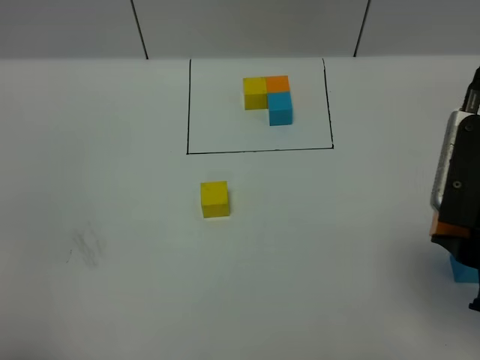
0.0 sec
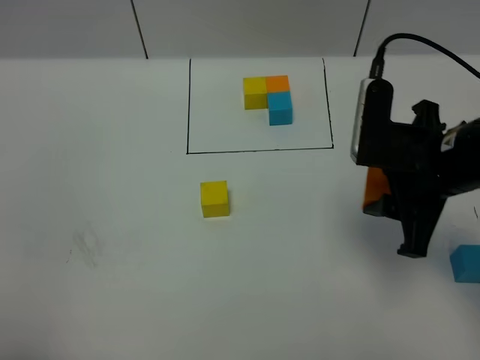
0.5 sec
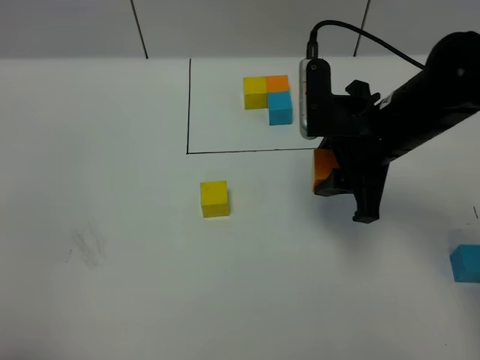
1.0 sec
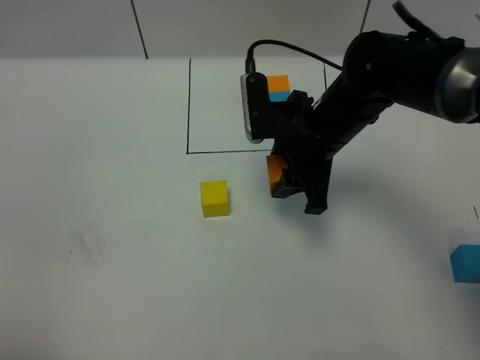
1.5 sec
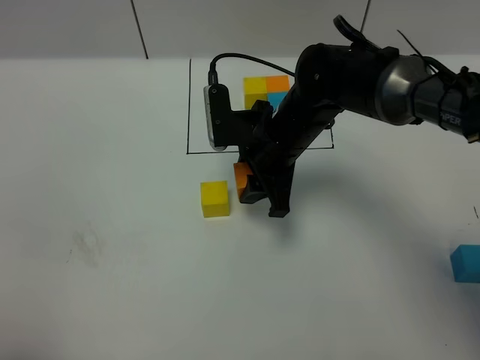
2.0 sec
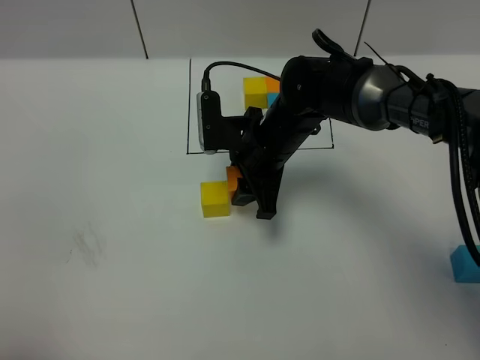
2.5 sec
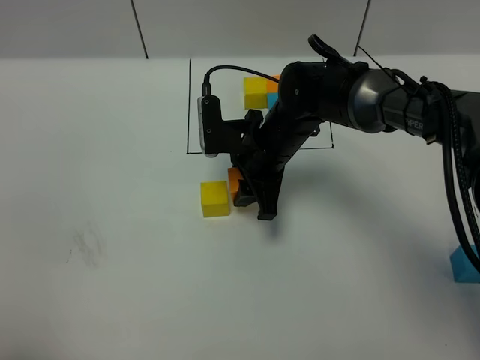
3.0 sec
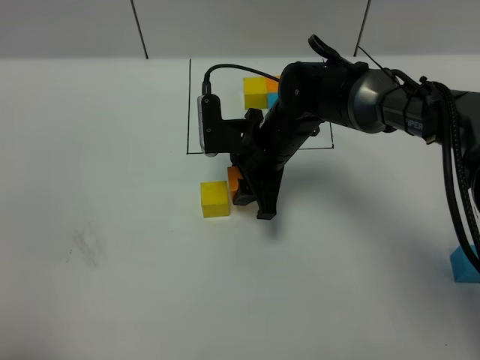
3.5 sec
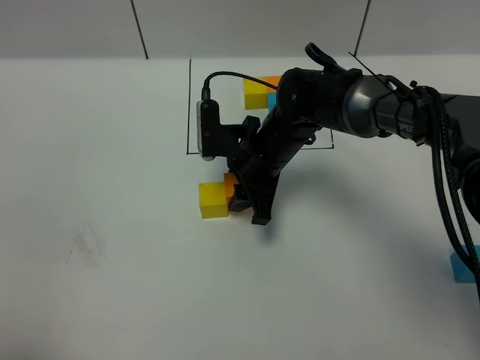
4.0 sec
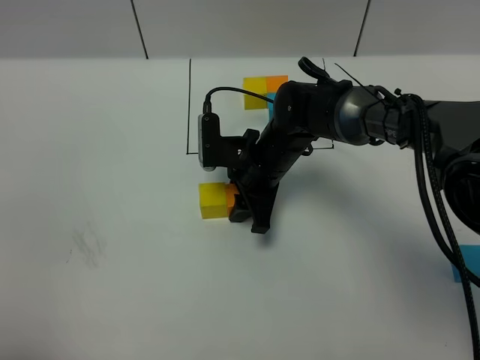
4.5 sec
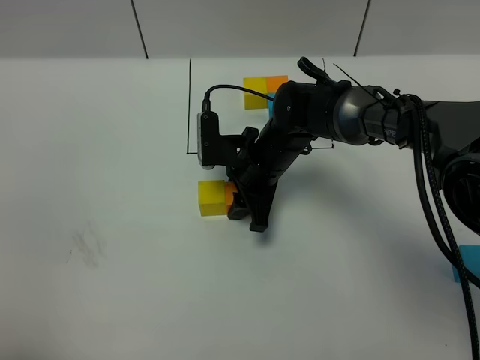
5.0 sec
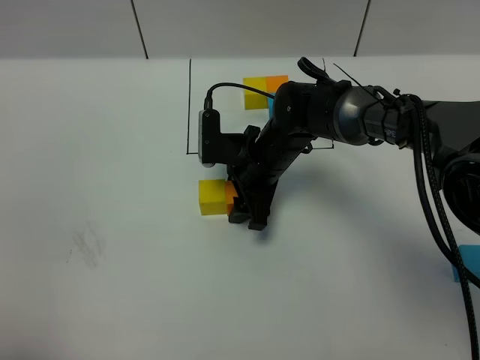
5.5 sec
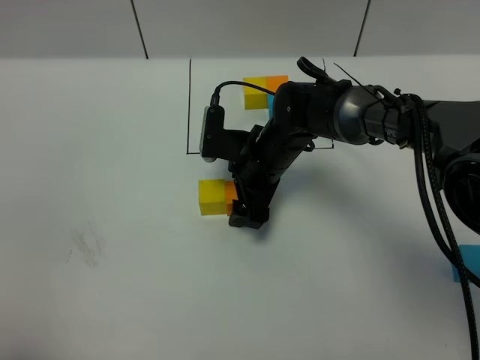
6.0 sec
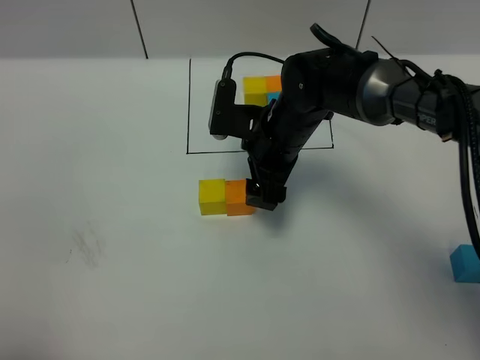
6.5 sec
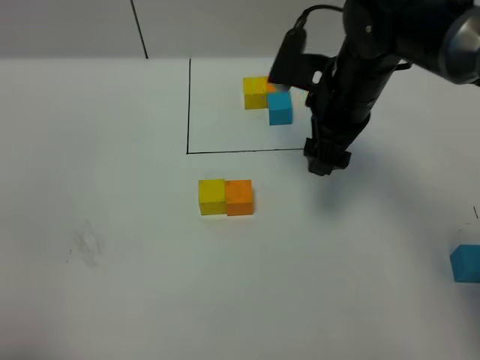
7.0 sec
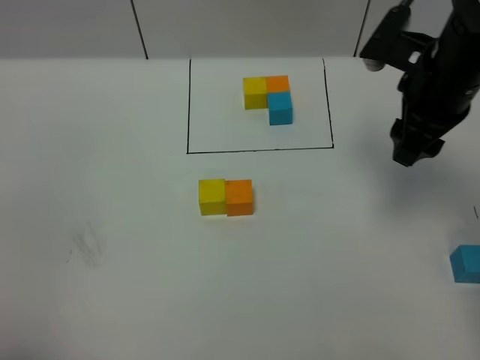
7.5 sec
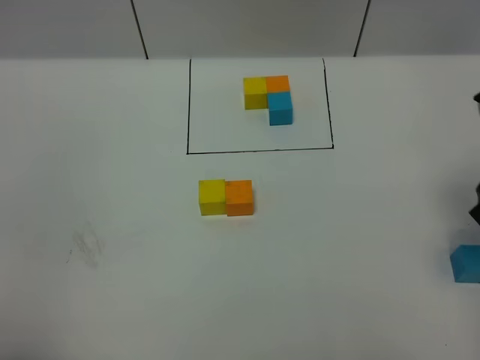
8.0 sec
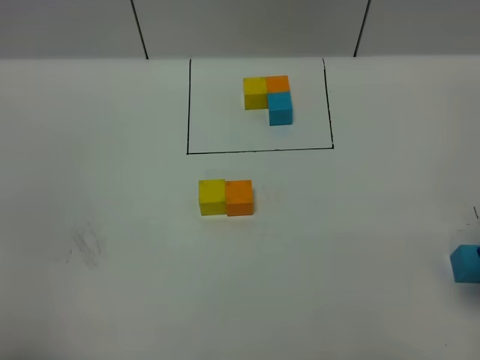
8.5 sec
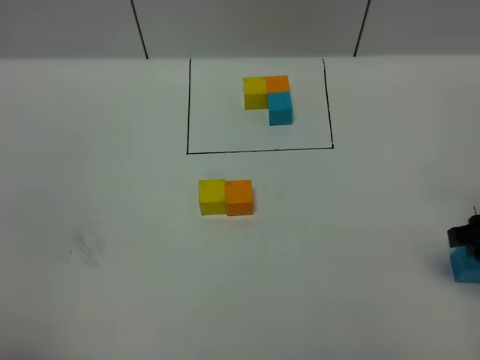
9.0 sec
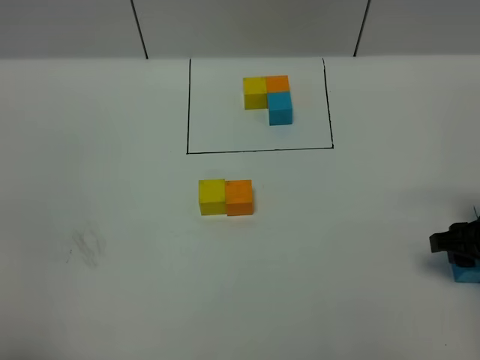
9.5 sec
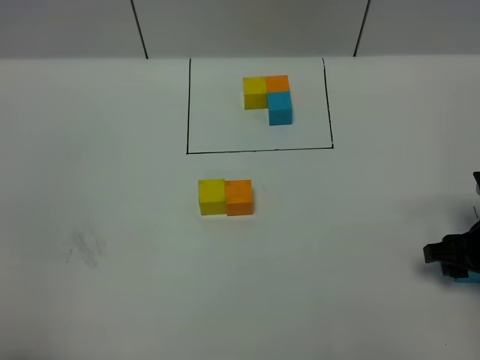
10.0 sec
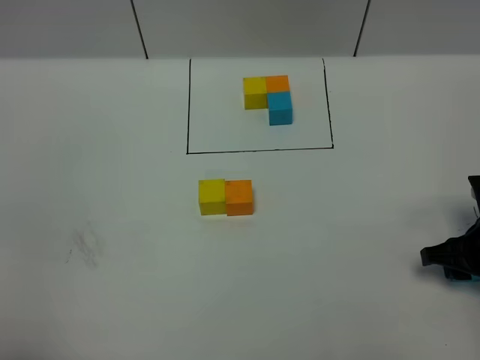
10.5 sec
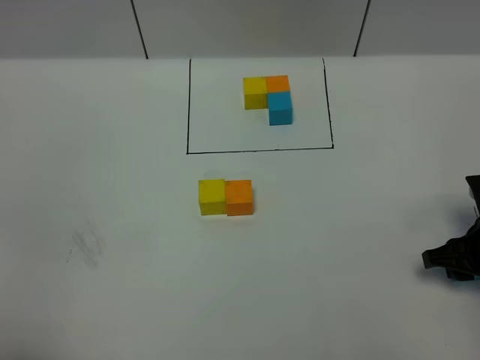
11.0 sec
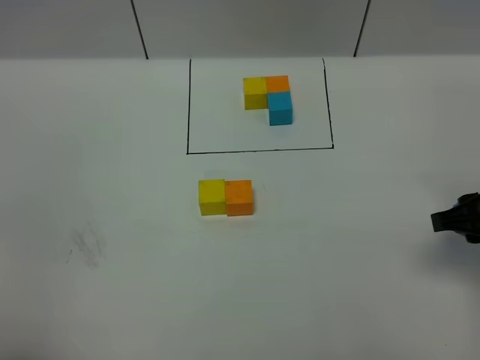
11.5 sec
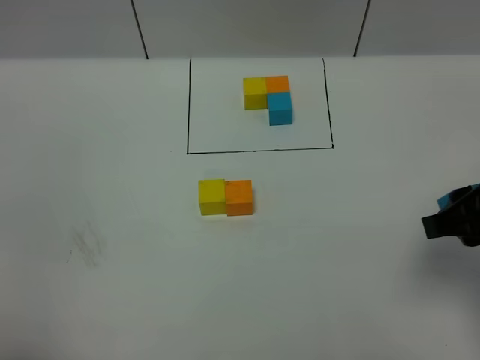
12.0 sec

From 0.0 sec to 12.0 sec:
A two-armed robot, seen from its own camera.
Task of the whole recording: According to the building block template in front, assemble the scattered blocks together.
Step, from 0.0 sec to 6.5 sec: Put the orange cube on the right of the yellow cube.
From 0.0 sec to 2.0 sec: The right gripper shifts approximately 30 cm forward, to the left and downward.
From 2.0 sec to 4.0 sec: The grippers make only small movements.
From 4.0 sec to 6.0 sec: The right gripper opens its fingers.
From 6.0 sec to 8.0 sec: The right gripper is displaced to the right, upward and backward by approximately 30 cm.
From 8.0 sec to 10.0 sec: The right gripper is displaced downward by roughly 15 cm.
From 10.0 sec to 12.0 sec: The right gripper shifts roughly 15 cm upward.

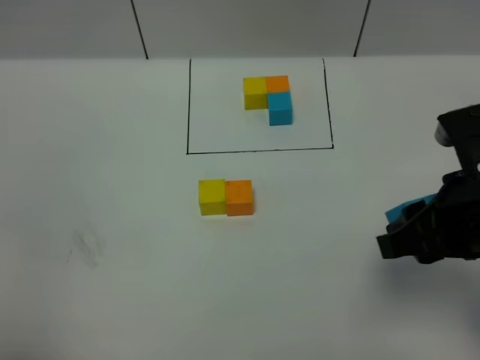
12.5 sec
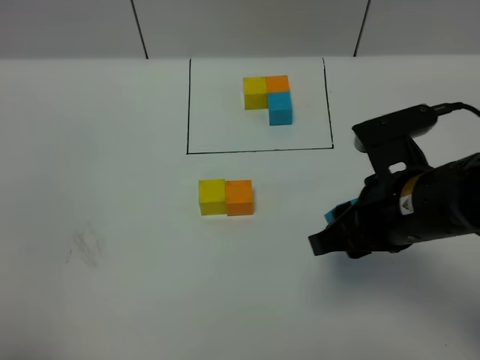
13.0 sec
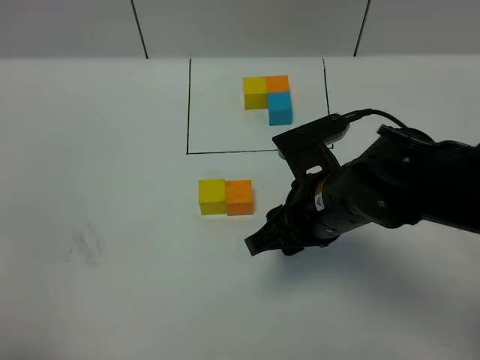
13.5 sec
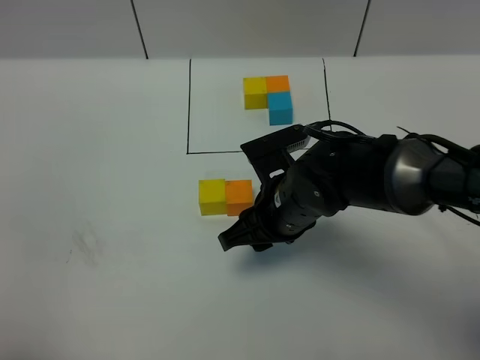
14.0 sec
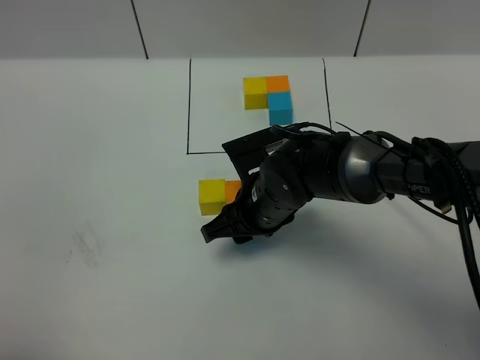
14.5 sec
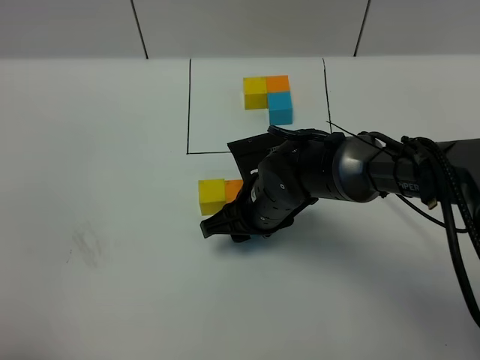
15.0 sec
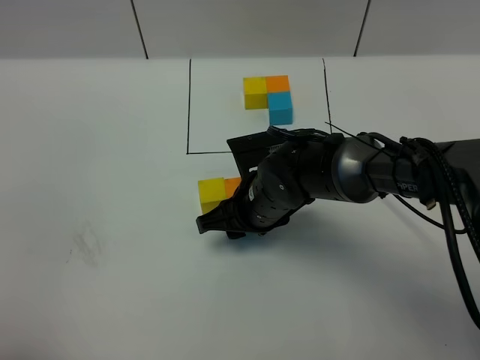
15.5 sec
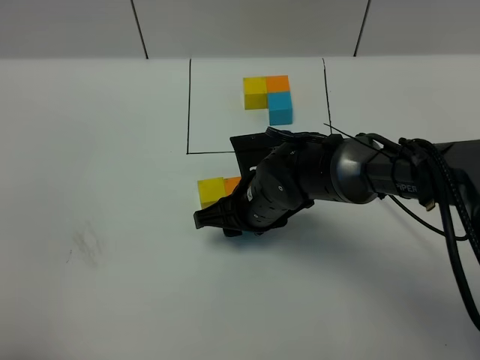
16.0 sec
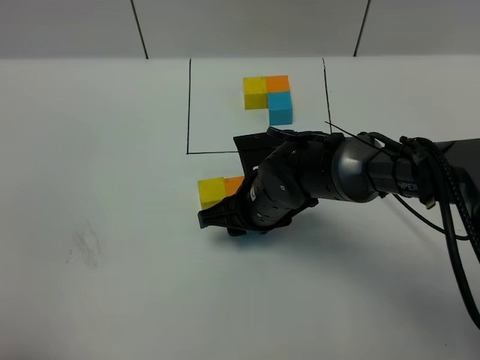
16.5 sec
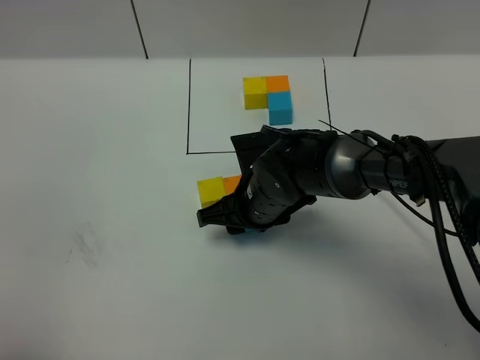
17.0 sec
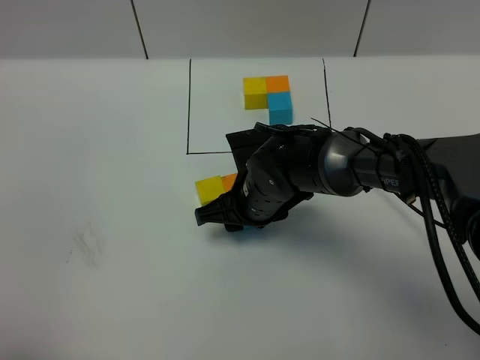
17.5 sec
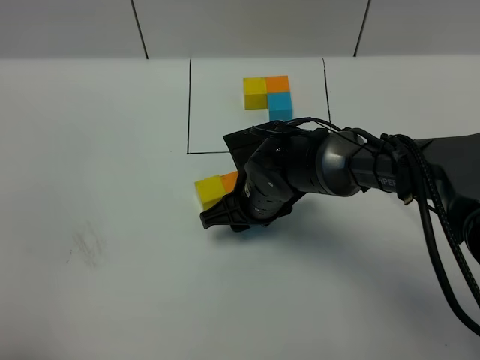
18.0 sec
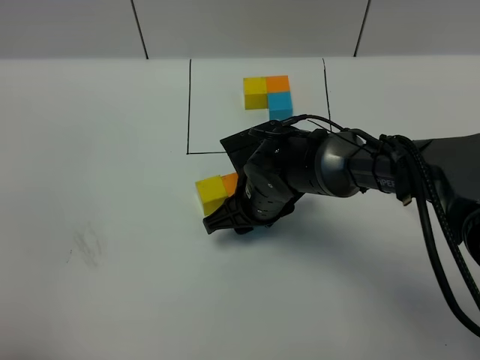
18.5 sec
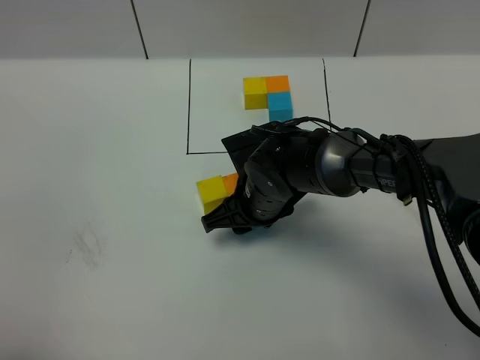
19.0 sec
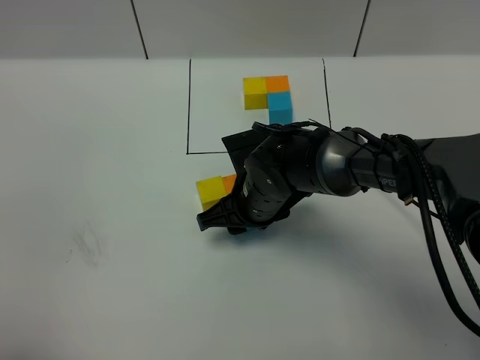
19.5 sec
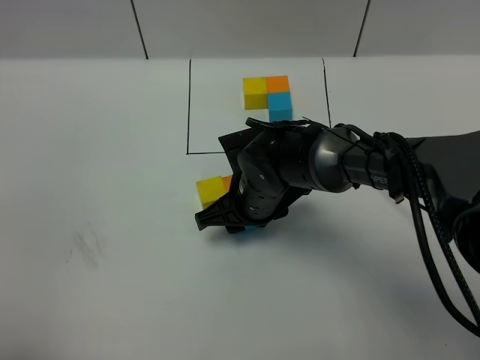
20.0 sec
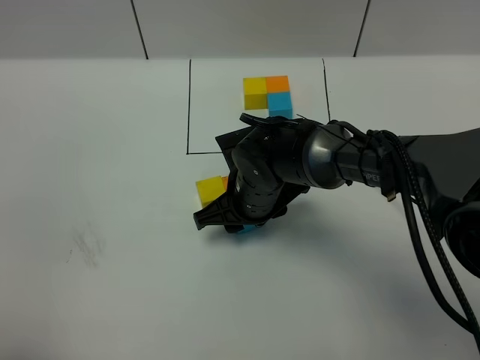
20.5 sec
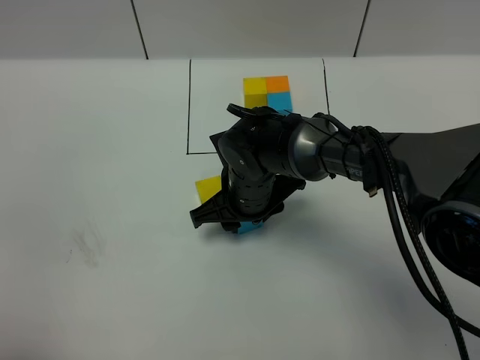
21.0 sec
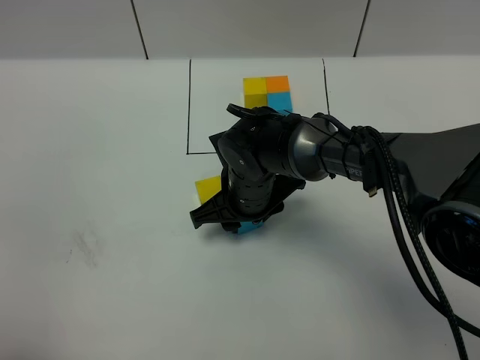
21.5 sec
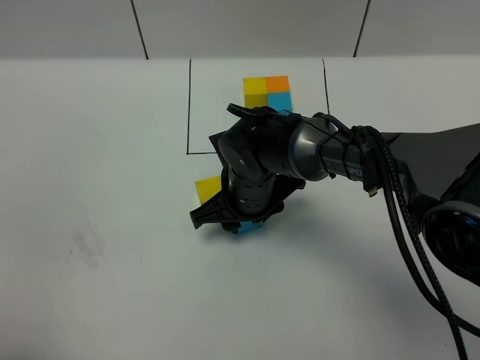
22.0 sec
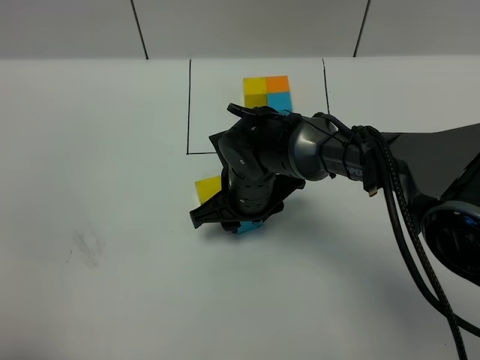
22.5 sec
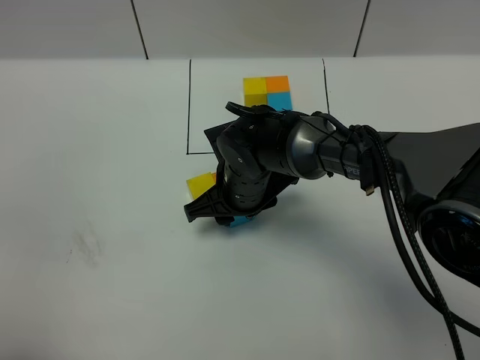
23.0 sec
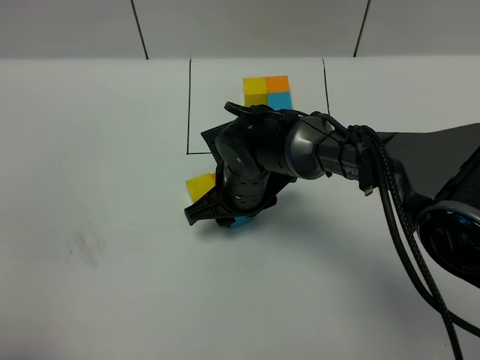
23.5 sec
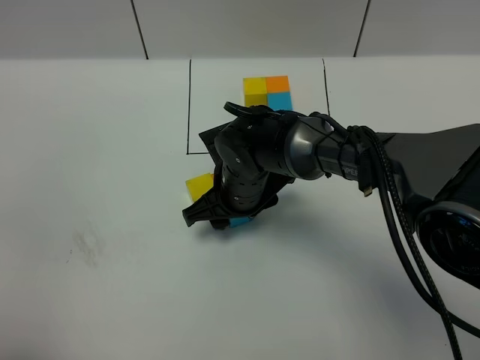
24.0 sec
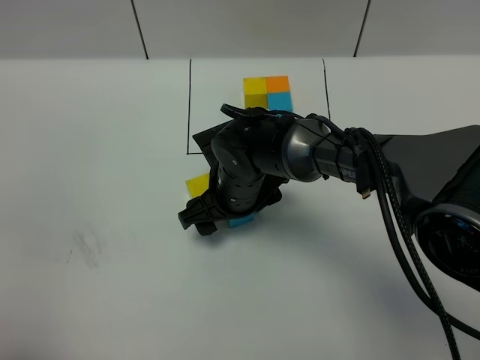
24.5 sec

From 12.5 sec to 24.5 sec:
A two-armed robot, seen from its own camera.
Task of the whole recording: According to the building block template in front, assemble the scattered blocks together.
From 12.5 sec to 14.5 sec: The right gripper shifts approximately 25 cm to the left, downward and forward.
From 14.5 sec to 22.5 sec: There are only small adjustments of the grippers.
From 22.5 sec to 24.5 sec: The right gripper opens its fingers.

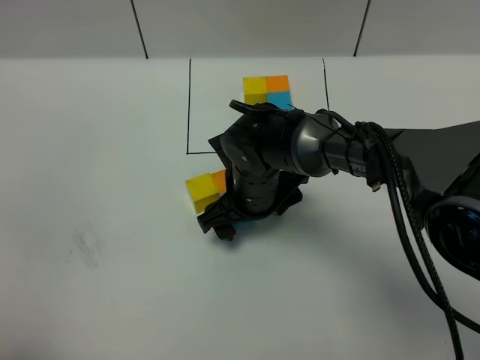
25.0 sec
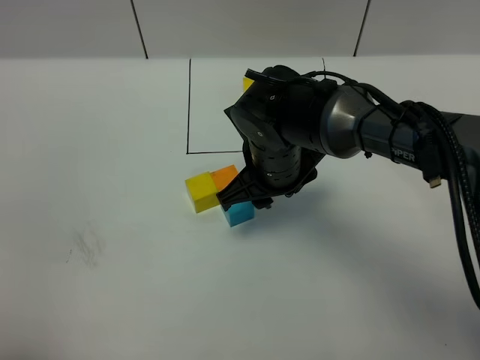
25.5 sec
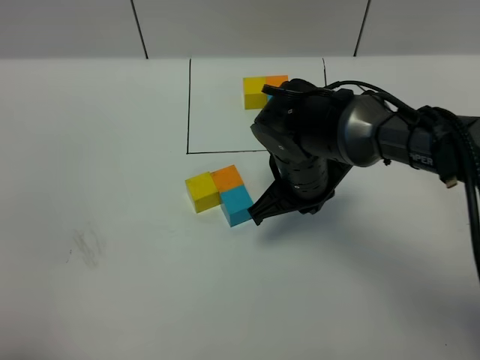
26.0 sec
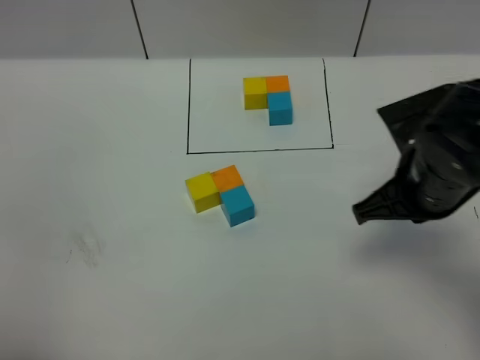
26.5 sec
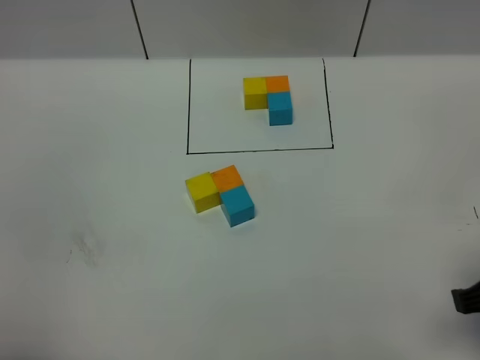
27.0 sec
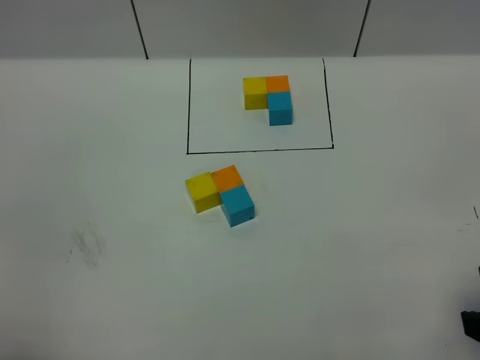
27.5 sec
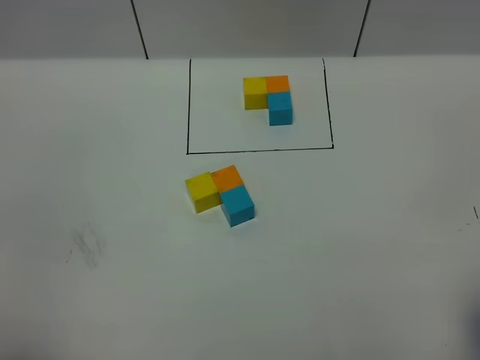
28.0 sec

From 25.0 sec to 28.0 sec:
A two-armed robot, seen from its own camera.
Task of the whole recording: According to the building block template in front, assemble the scattered blocks together.
From 25.0 sec to 26.5 sec: The right gripper is displaced to the right, upward and backward by approximately 20 cm, and closes its fingers.
From 26.5 sec to 28.0 sec: The right gripper shifts approximately 20 cm backward and to the right.
